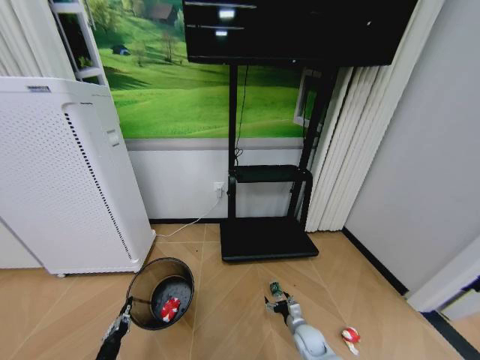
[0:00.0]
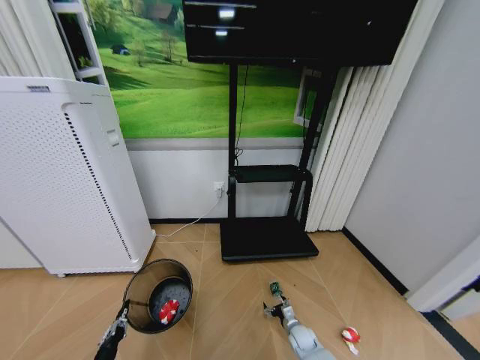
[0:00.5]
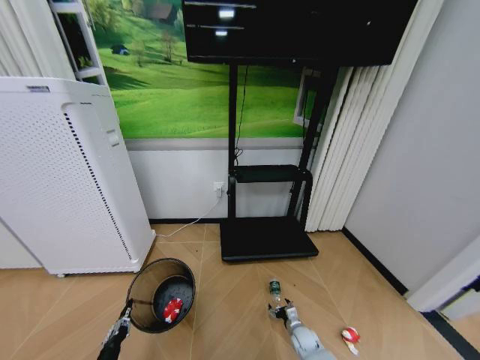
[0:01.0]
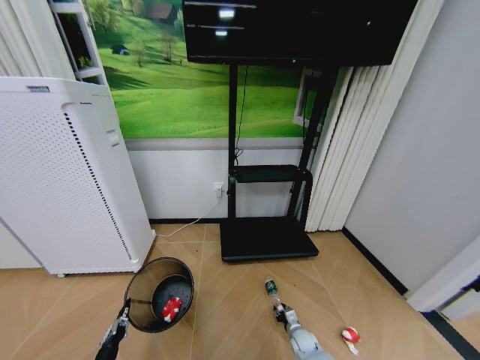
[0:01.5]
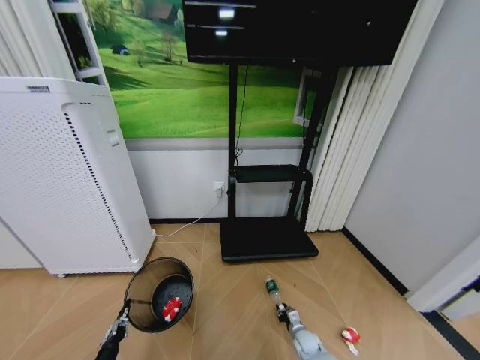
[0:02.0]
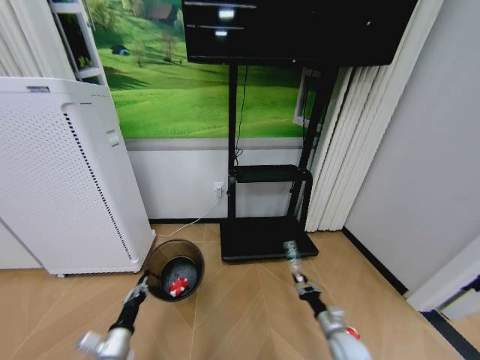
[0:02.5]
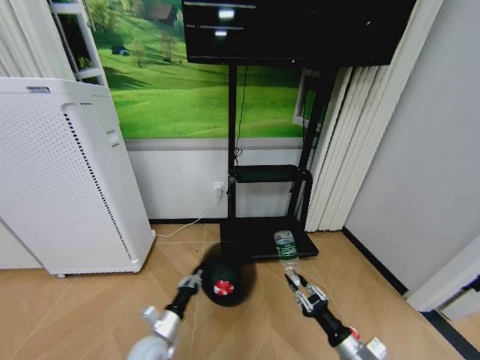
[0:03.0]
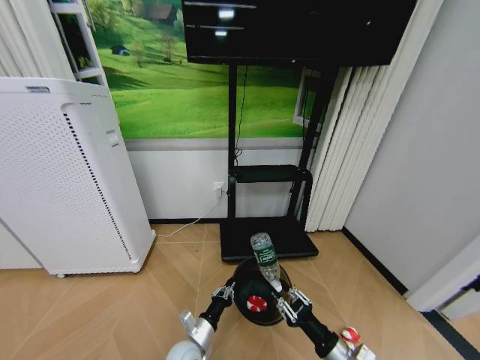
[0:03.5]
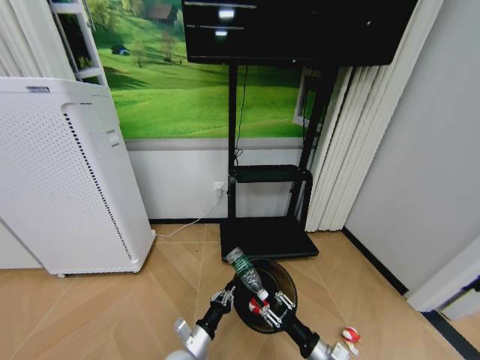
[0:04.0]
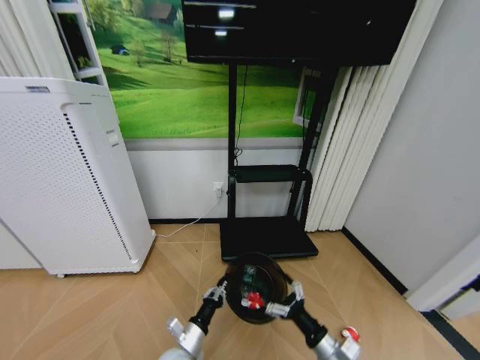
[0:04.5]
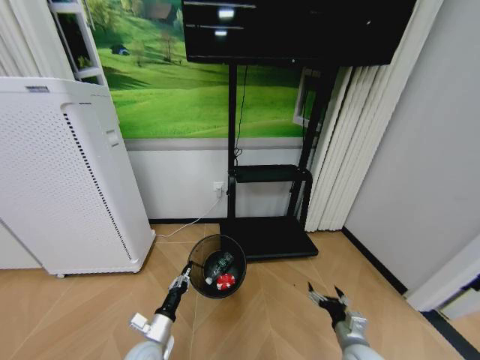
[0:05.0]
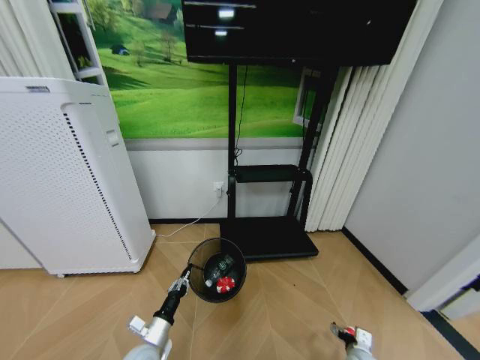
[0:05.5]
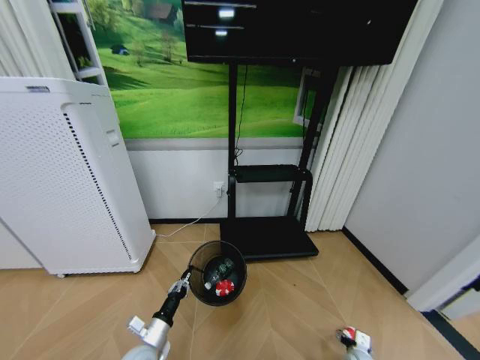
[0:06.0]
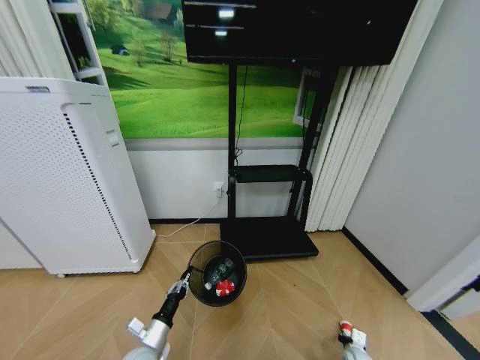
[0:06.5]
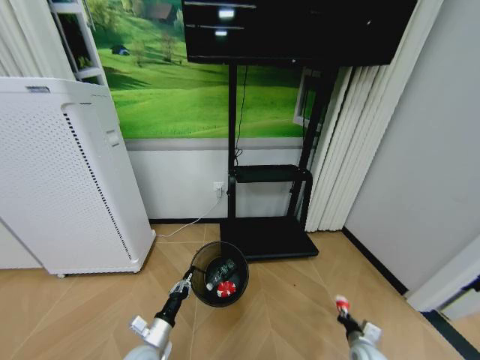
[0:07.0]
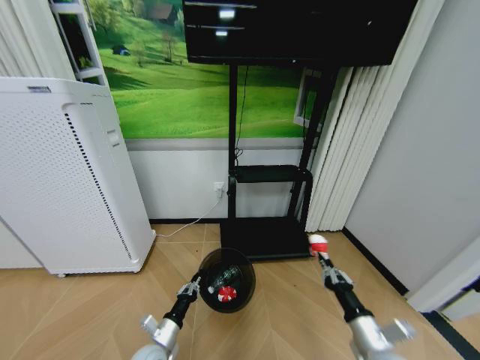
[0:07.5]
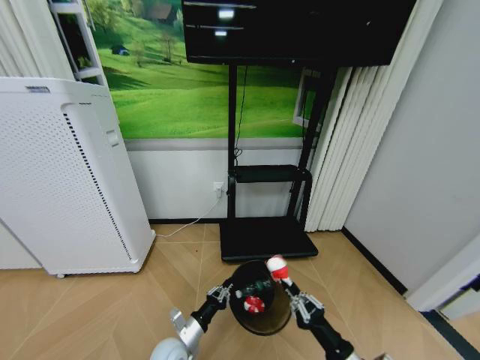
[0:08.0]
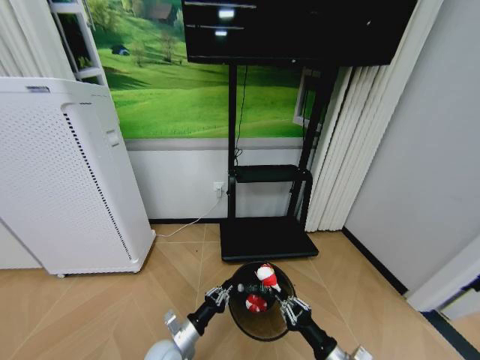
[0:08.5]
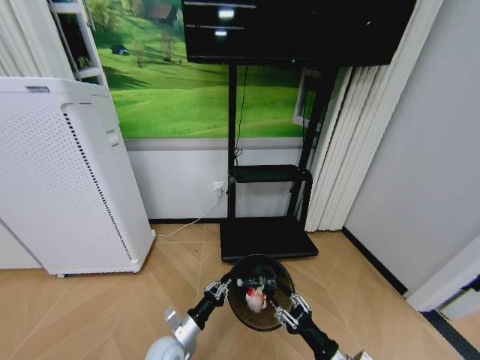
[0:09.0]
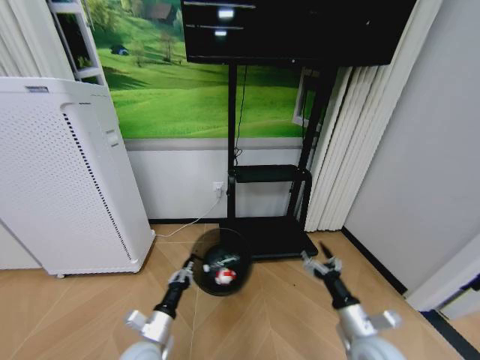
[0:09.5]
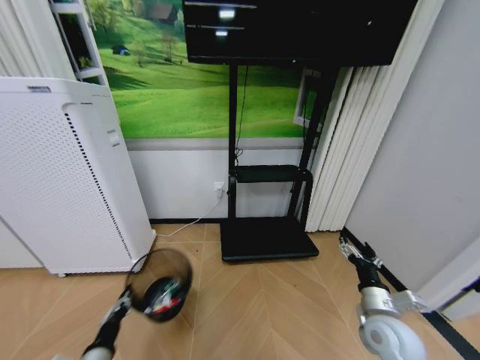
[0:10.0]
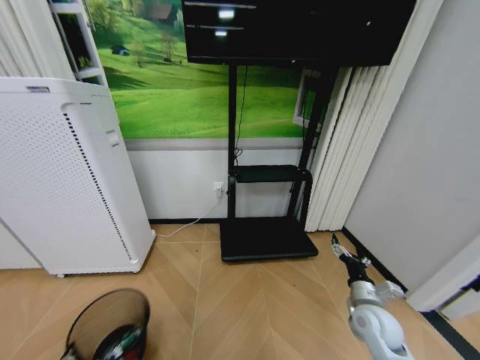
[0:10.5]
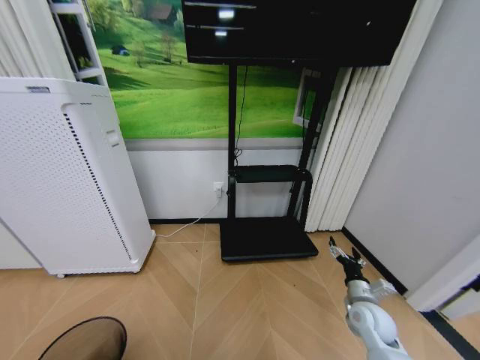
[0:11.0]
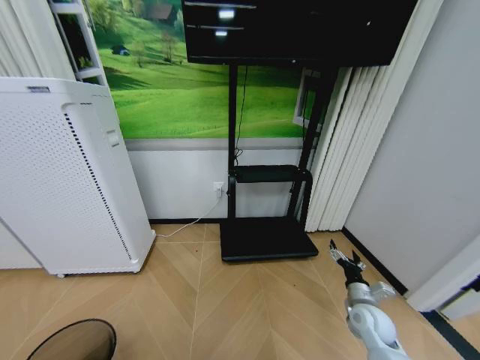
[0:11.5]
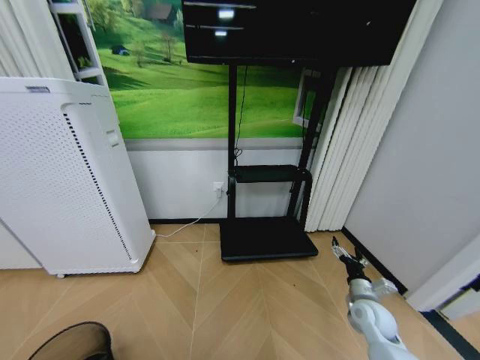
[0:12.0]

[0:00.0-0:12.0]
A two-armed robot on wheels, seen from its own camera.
Task of the whole recording: Pick up the trash bin and place the garbage on the floor into it.
0:00.0 to 0:02.0: The right gripper is displaced downward by approximately 5 cm, and closes its fingers.
0:02.0 to 0:04.0: The left gripper heads to the right and forward, covering roughly 20 cm. The right gripper shifts about 25 cm upward and backward.
0:04.0 to 0:06.0: The right gripper shifts approximately 25 cm downward and to the right, and opens its fingers; the left gripper is displaced to the left by about 10 cm.
0:06.0 to 0:08.0: The left gripper moves to the right, roughly 10 cm. Meanwhile the right gripper moves upward, to the left and backward, about 30 cm, and closes its fingers.
0:08.0 to 0:10.0: The right gripper travels forward and to the right by some 15 cm, and opens, while the left gripper is displaced to the left, upward and backward by roughly 20 cm.
0:10.0 to 0:12.0: The left gripper goes roughly 20 cm backward, to the left and downward, while the right gripper goes some 10 cm forward and downward.

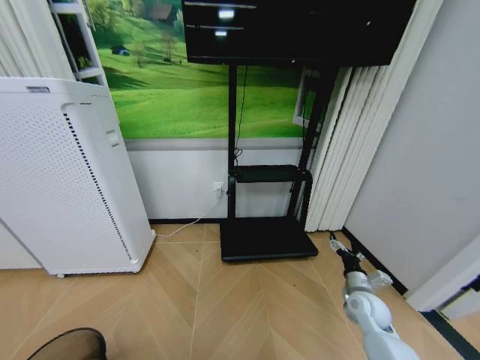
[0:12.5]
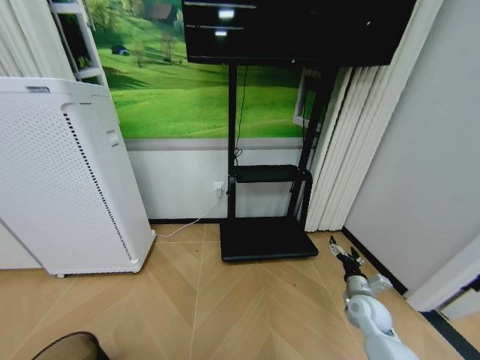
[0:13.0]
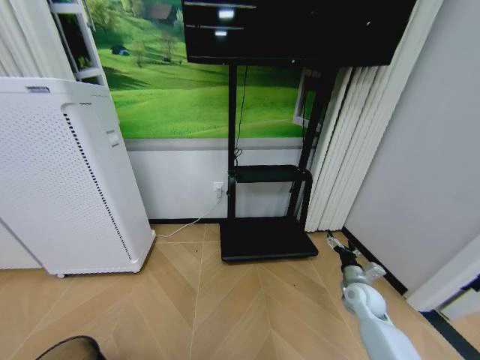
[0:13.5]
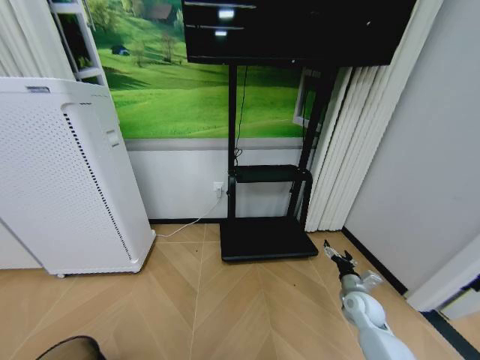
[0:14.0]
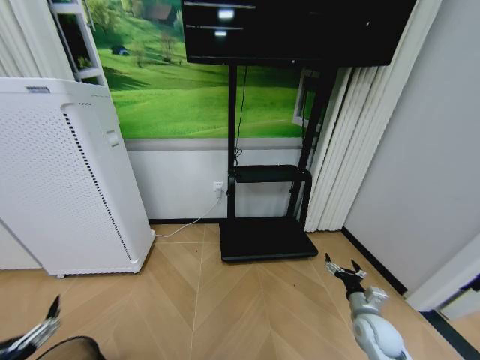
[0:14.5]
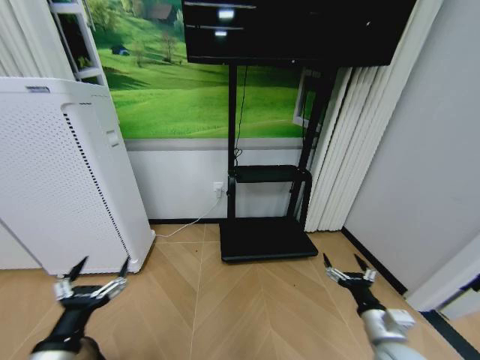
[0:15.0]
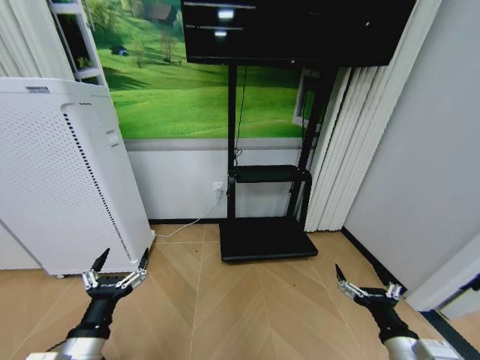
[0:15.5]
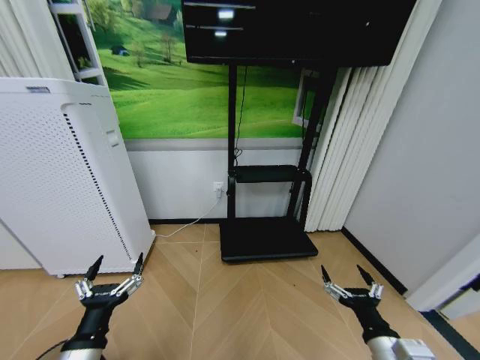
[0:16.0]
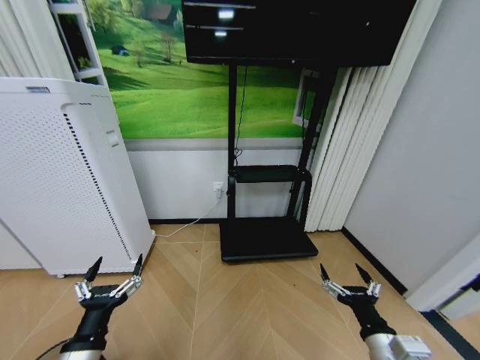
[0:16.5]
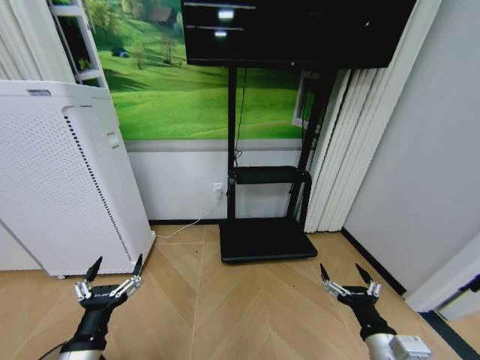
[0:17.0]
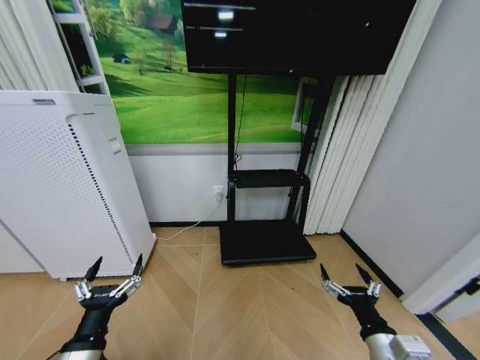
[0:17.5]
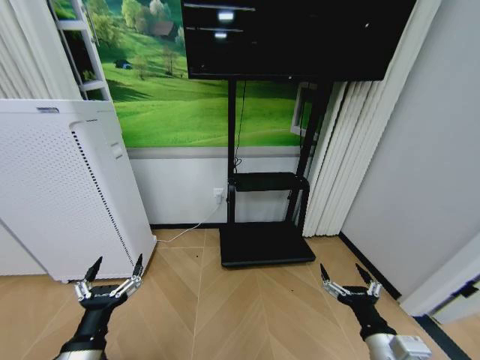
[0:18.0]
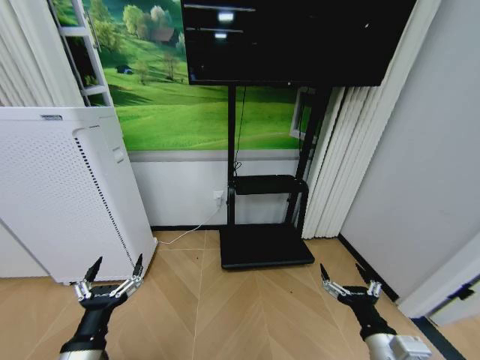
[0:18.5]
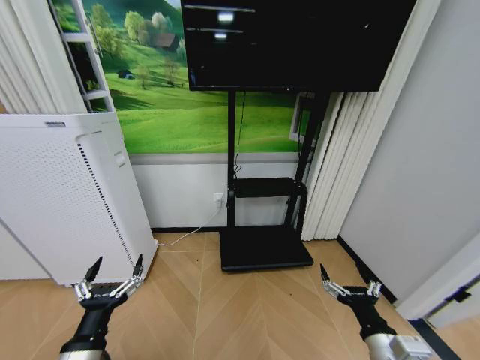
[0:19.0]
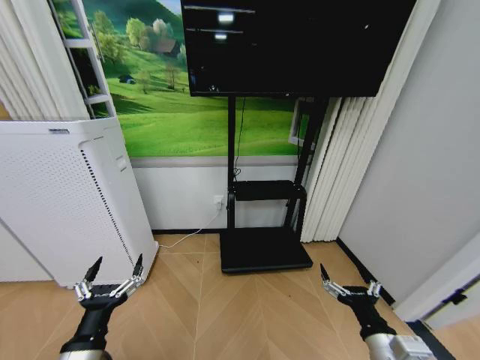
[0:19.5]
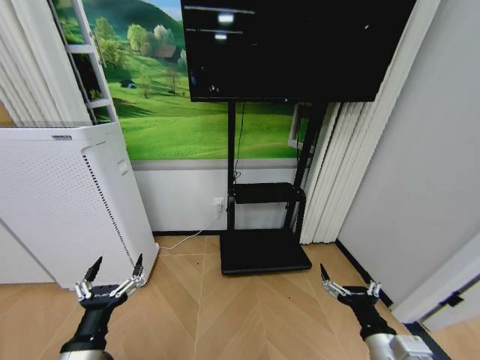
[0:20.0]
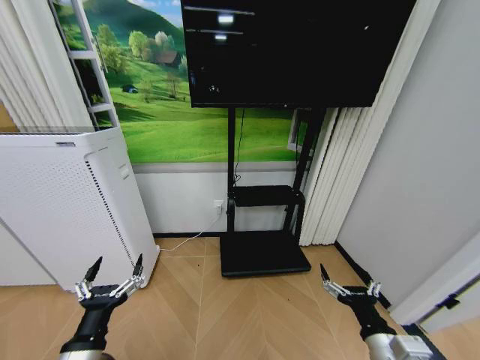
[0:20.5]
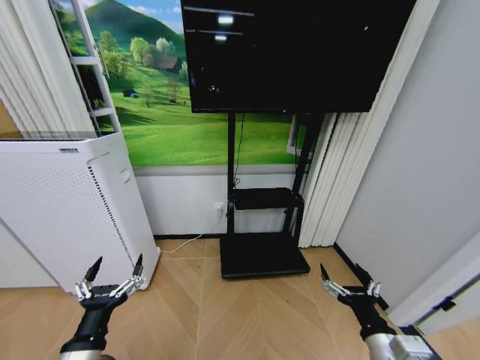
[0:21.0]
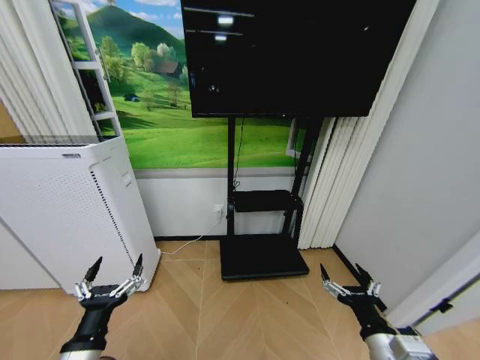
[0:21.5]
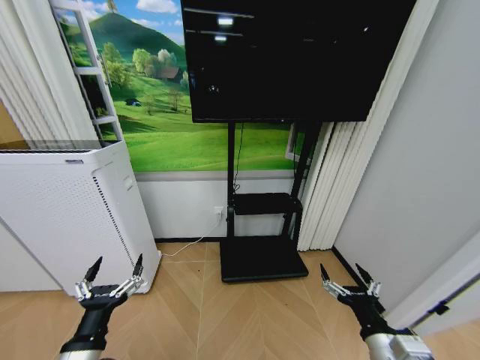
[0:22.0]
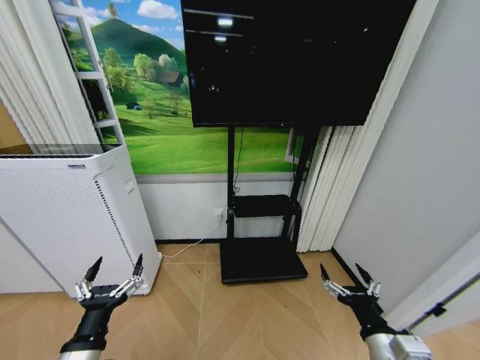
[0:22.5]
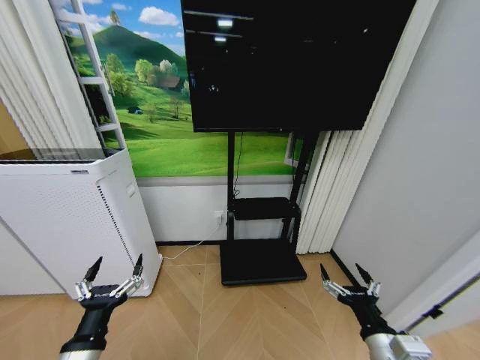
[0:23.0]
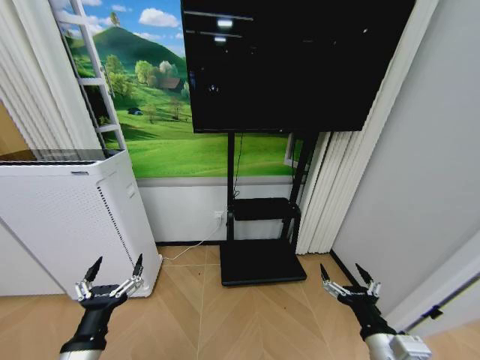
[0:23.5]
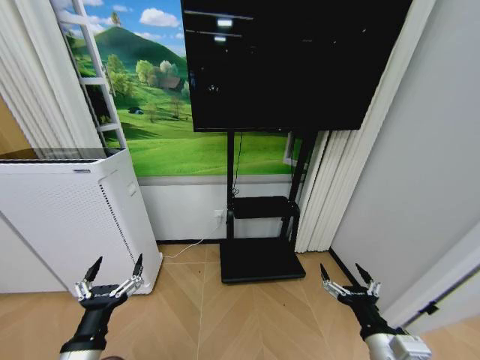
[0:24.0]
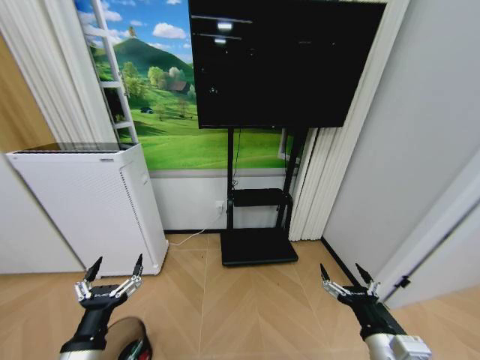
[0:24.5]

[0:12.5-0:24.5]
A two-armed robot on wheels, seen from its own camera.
Task of the whole recording: Pick up the trash bin and place the garbage on the floor into it.
0:12.5 to 0:14.5: The right gripper shifts by approximately 5 cm, while the left gripper shifts roughly 15 cm upward, and opens its fingers.
0:14.5 to 0:16.5: The left gripper is displaced forward and to the right by approximately 10 cm; the right gripper travels backward, upward and to the left by approximately 20 cm.
0:16.5 to 0:22.5: Neither gripper changes place.
